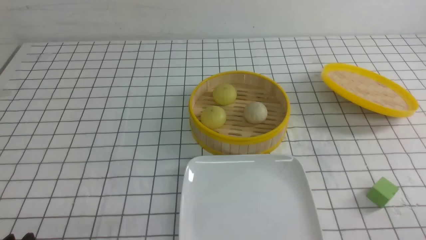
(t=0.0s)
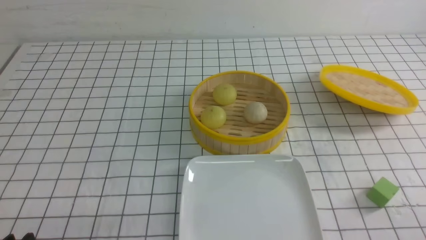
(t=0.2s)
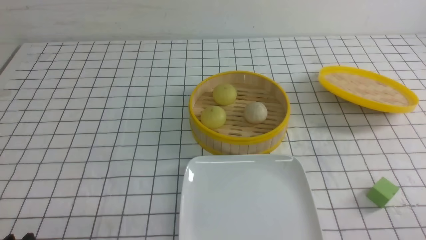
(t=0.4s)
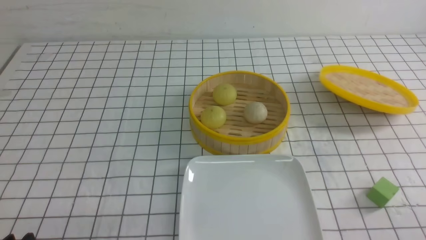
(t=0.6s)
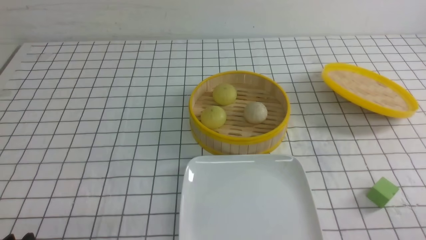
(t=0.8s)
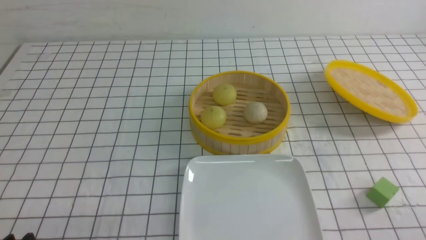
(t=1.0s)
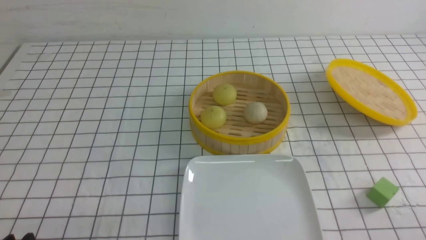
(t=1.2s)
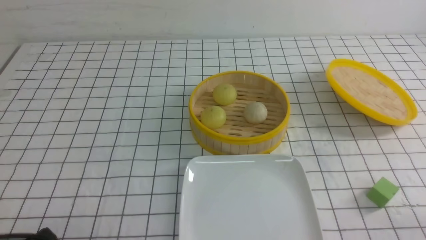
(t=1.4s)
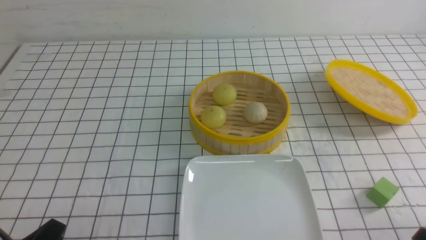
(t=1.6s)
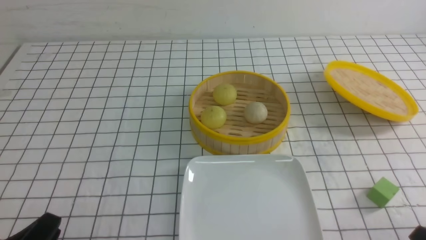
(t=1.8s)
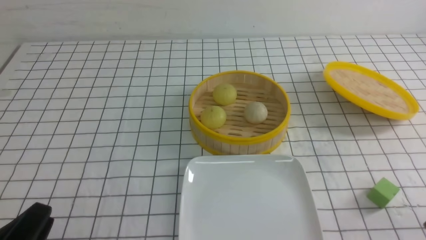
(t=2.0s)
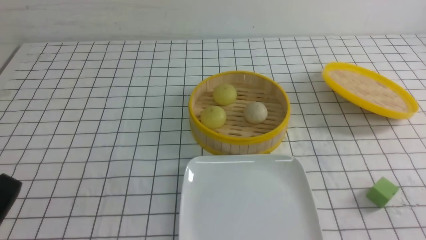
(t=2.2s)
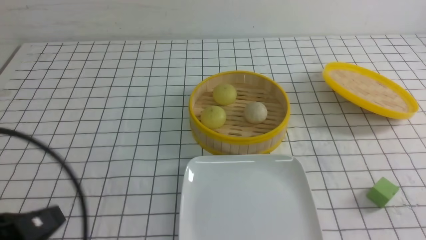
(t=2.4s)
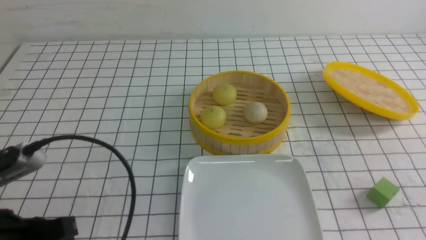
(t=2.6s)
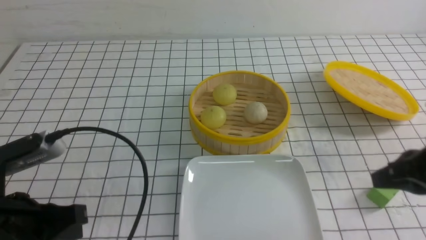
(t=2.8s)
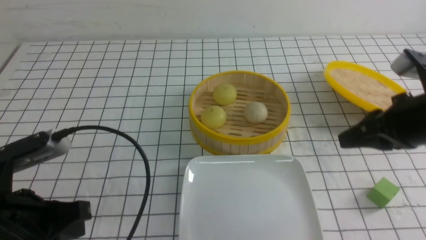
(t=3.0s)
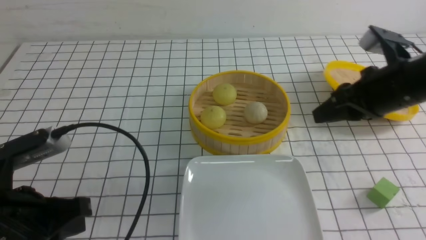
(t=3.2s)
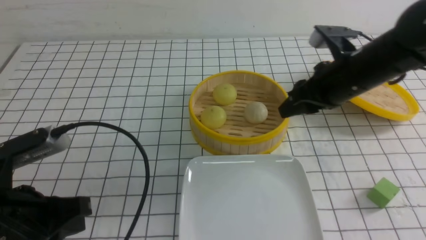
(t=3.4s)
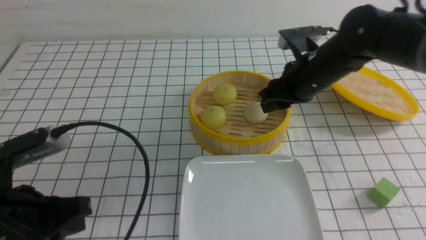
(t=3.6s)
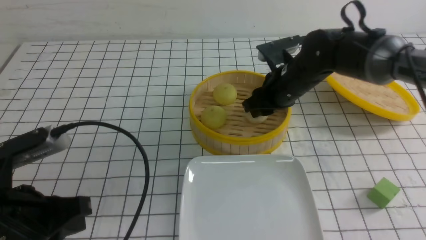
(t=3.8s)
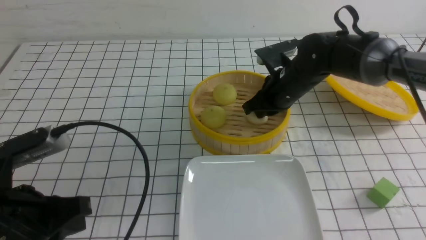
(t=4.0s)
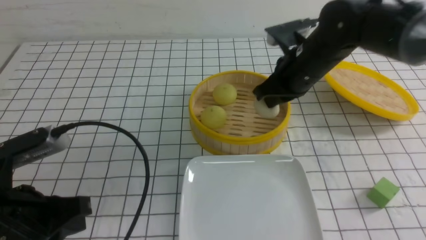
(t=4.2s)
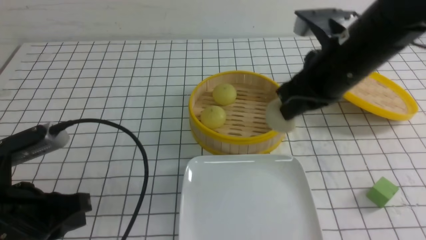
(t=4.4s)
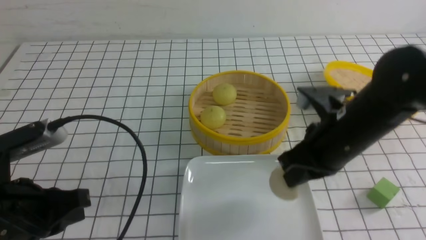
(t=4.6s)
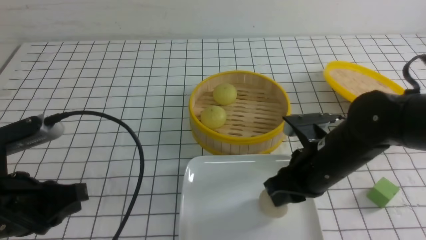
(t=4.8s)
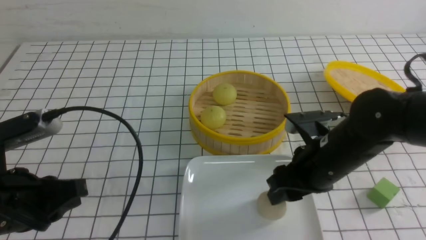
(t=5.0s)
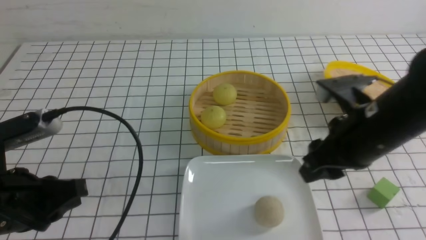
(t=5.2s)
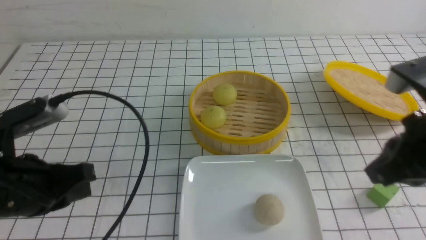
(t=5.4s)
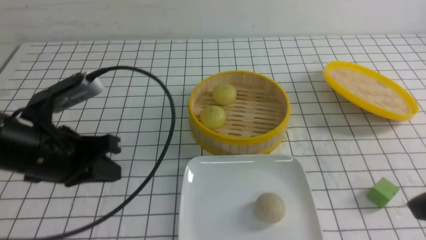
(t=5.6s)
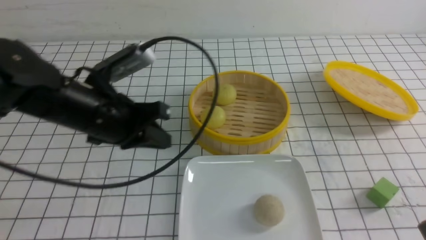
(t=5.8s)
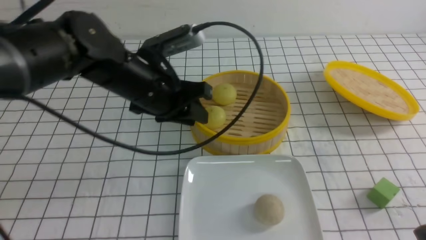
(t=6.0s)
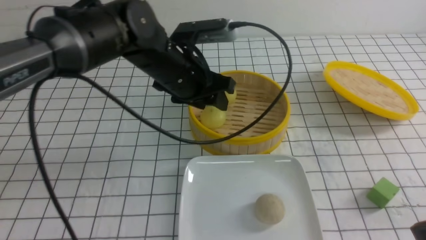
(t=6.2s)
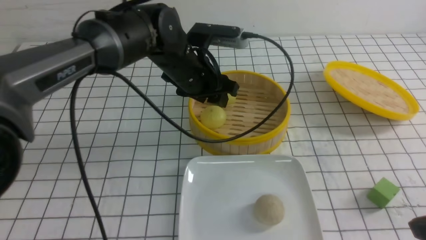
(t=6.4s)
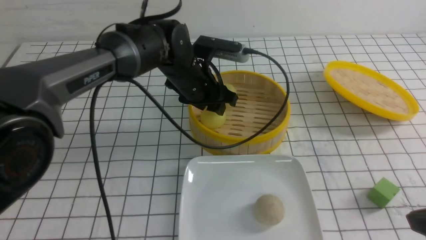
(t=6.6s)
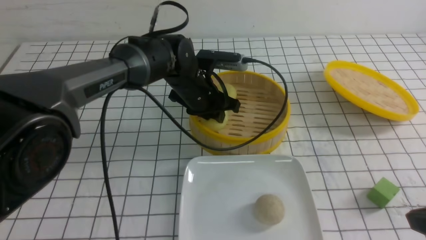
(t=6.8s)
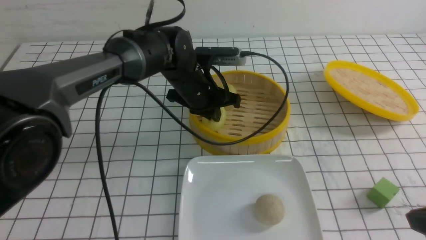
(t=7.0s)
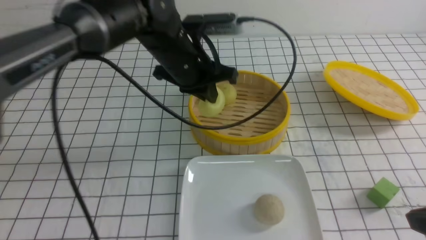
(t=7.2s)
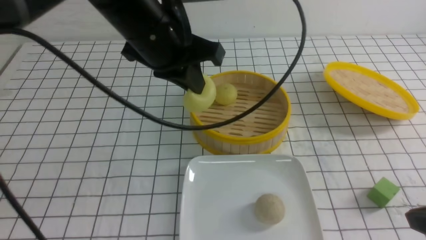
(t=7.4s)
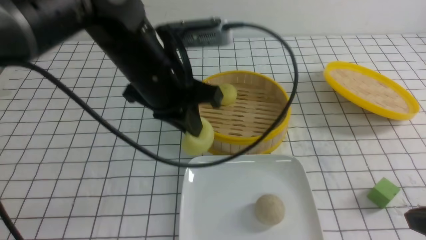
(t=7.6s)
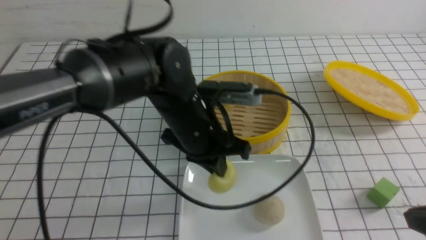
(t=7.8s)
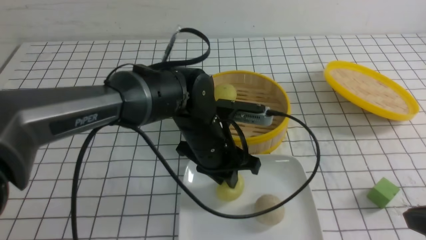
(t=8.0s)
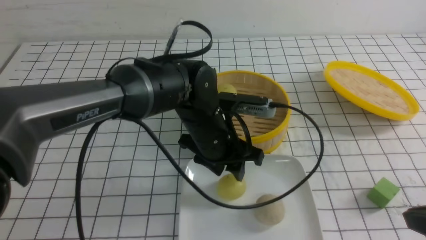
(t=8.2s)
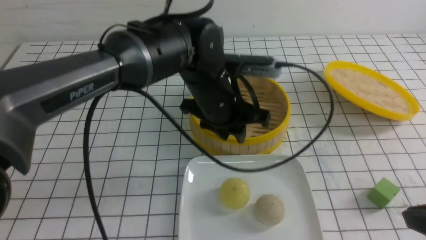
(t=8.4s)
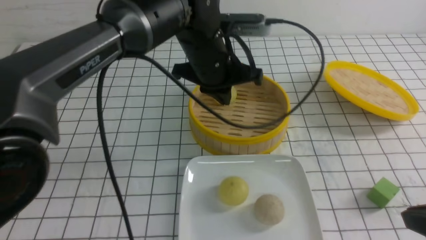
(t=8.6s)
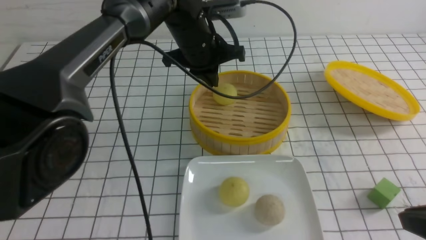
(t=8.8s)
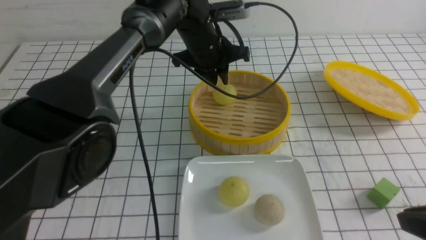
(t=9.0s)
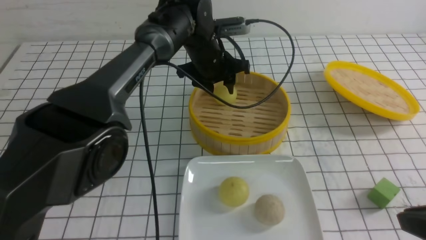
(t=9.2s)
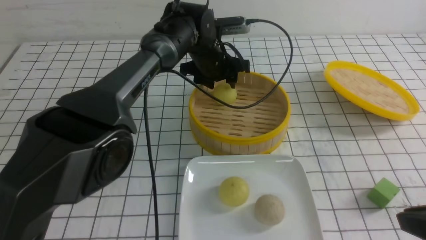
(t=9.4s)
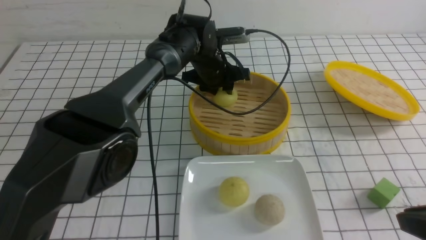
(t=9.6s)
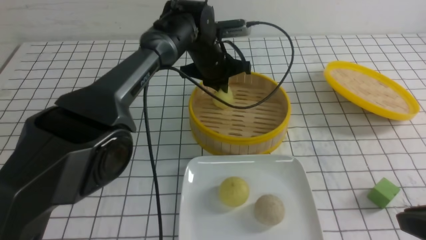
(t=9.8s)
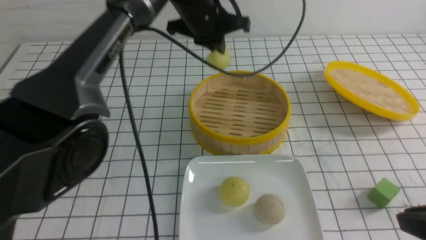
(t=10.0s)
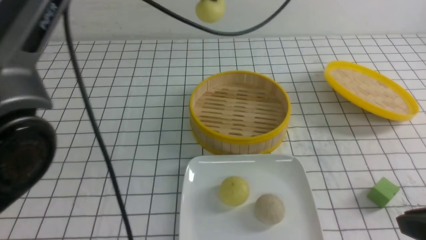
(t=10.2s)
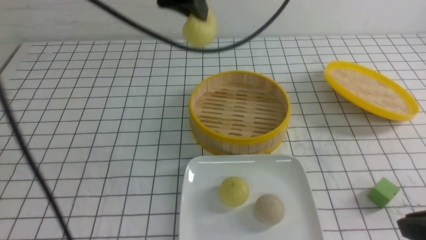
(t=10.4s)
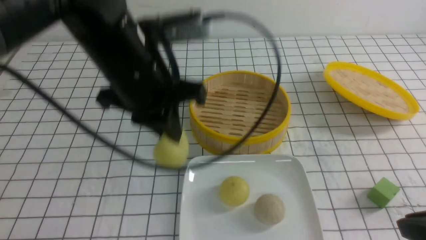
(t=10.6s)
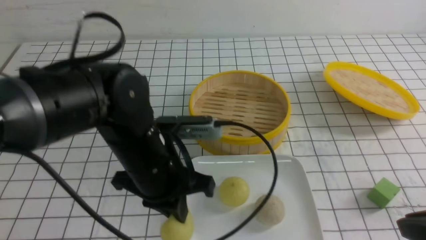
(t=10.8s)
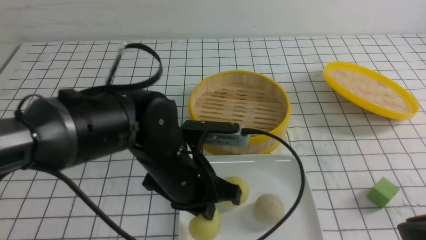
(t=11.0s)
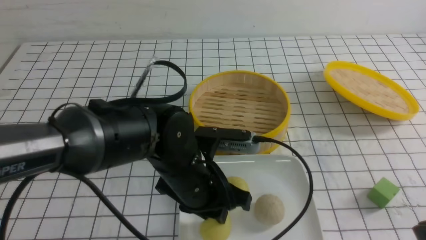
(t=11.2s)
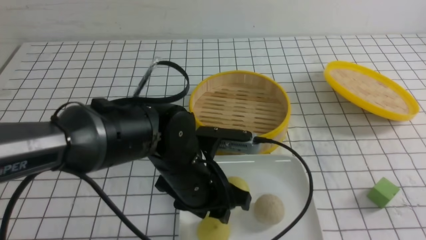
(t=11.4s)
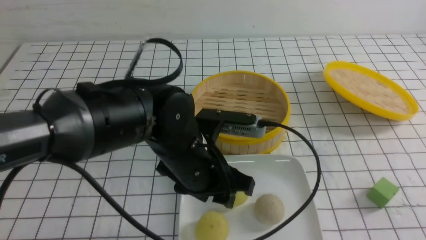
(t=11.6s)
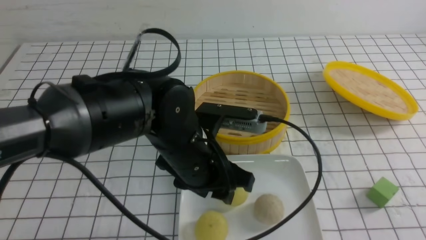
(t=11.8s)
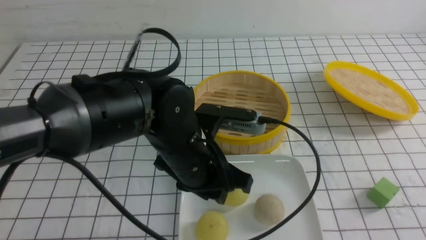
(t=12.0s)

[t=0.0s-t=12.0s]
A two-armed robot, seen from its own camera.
Step, t=0.0s to t=4.0s: use the right arm to grab the steamed stuffed bun that is closest to it.
Step, t=4.2s to t=5.0s: use the right arm to put the steamed stuffed bun into the plate.
Step, t=5.2s to t=7.0s: use the left arm to grab the steamed stuffed bun that is closest to it.
Step, t=7.2s to t=8.2s: use the left arm to put the steamed stuffed bun into the plate.
Step, t=8.4s to t=9.8s: use the left arm to grab the steamed stuffed bun that is closest to it.
Step, t=10.2s to t=11.8s: use the left arm to put the steamed stuffed bun into the plate.
t=1.6s to t=3.0s: The left gripper travels forward and upward by approximately 10 cm, and closes up, while the right gripper goes approximately 25 cm forward and upward, and closes, then opens again.
t=3.0s to t=4.4s: The right gripper travels to the left and forward by some 10 cm, and closes its fingers.
t=4.4s to t=6.0s: The right gripper travels backward and to the right by some 25 cm, and opens and closes again. The left gripper moves forward and to the right, roughly 20 cm, and opens up.
t=6.0s to t=7.6s: The left gripper moves roughly 5 cm downward and comes back, and closes its fingers.
t=7.6s to t=9.0s: The left gripper moves forward, roughly 15 cm, and opens its fingers.
t=9.0s to t=10.4s: The left gripper goes roughly 20 cm upward and backward, and closes.
t=10.4s to t=12.0s: The right gripper goes about 10 cm backward and to the right, and closes up, while the left gripper is displaced downward and backward by approximately 20 cm, and opens.

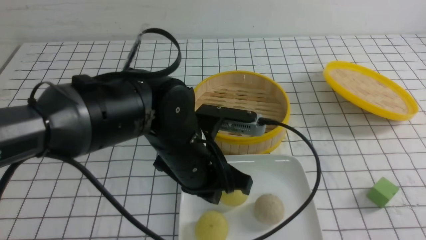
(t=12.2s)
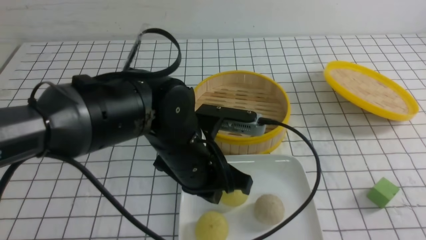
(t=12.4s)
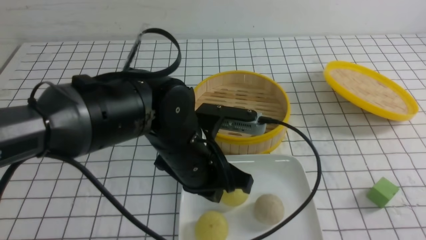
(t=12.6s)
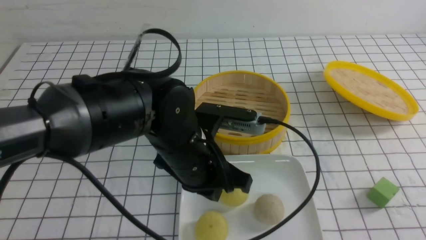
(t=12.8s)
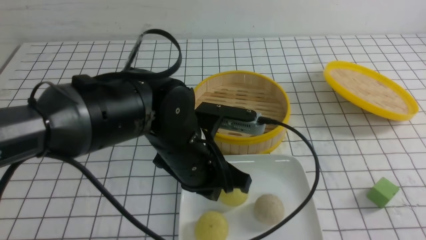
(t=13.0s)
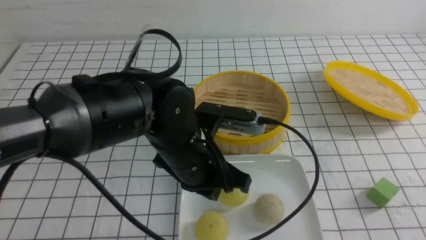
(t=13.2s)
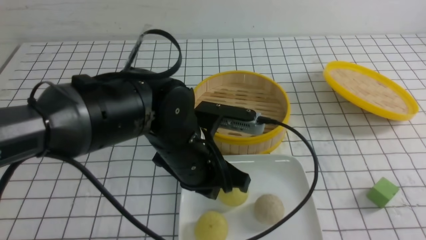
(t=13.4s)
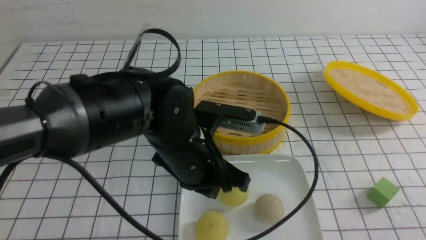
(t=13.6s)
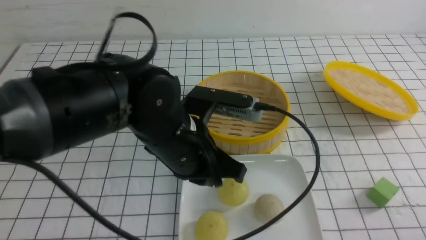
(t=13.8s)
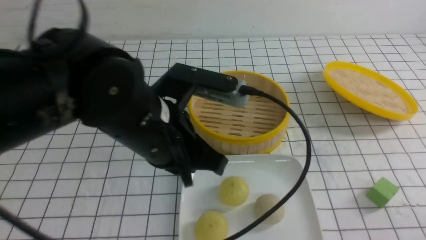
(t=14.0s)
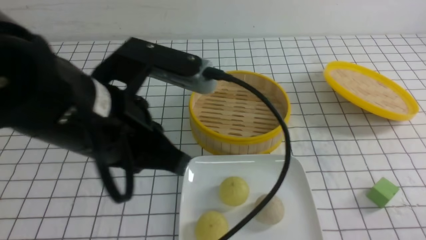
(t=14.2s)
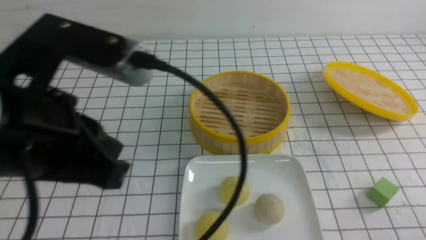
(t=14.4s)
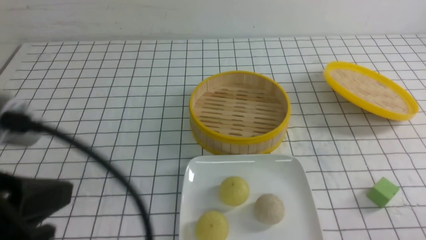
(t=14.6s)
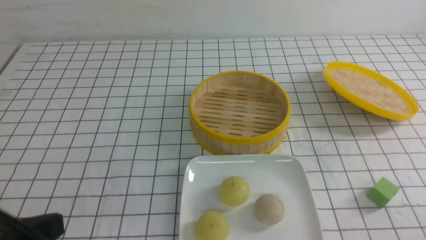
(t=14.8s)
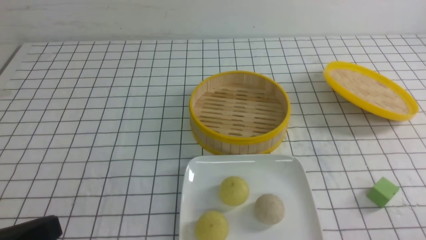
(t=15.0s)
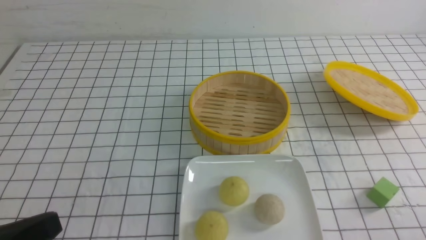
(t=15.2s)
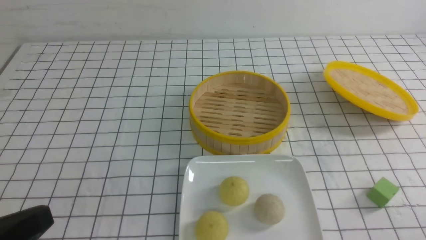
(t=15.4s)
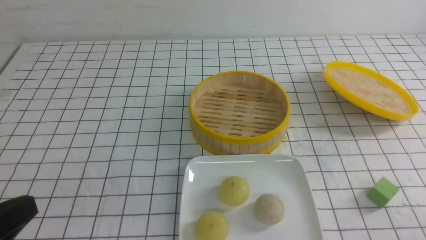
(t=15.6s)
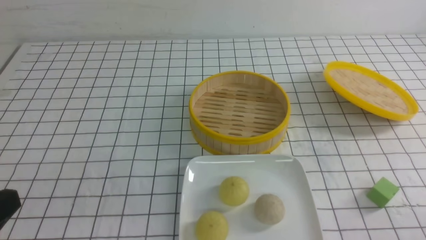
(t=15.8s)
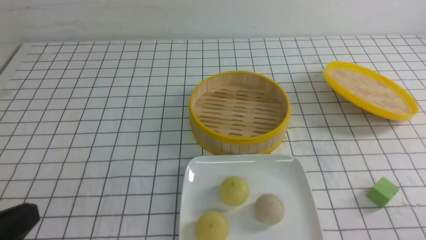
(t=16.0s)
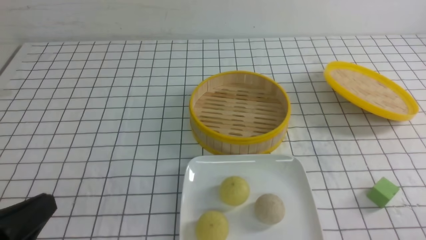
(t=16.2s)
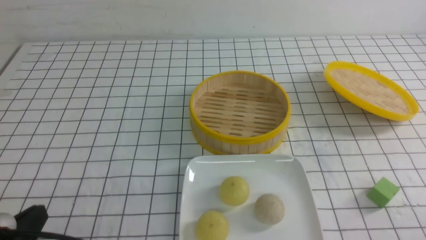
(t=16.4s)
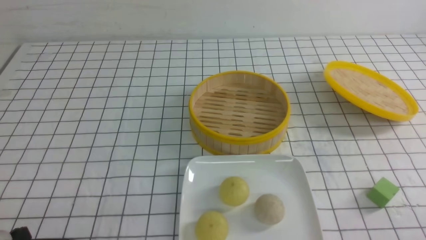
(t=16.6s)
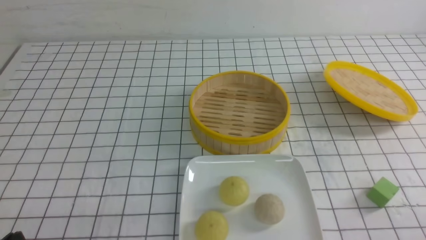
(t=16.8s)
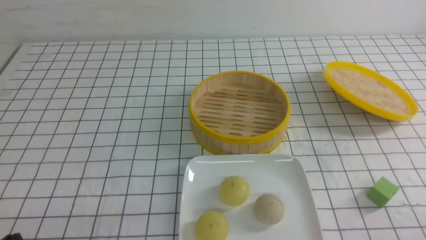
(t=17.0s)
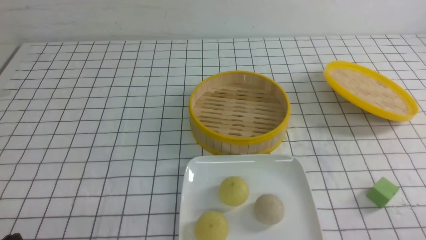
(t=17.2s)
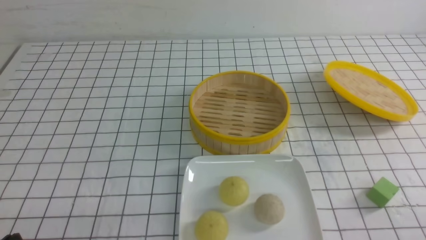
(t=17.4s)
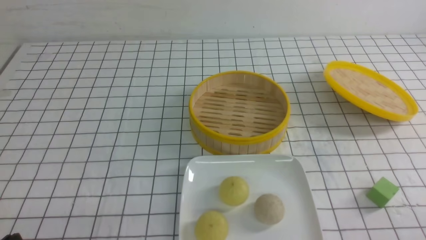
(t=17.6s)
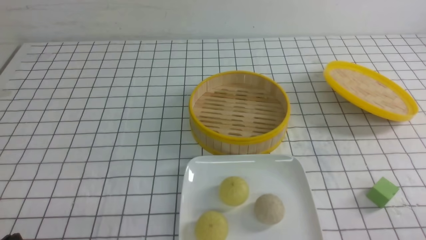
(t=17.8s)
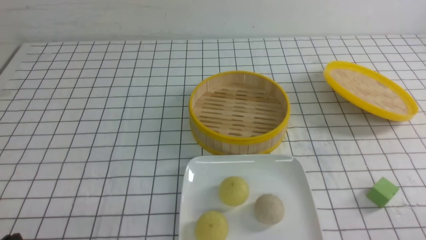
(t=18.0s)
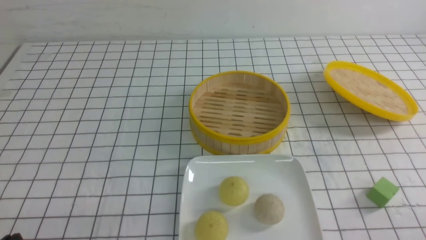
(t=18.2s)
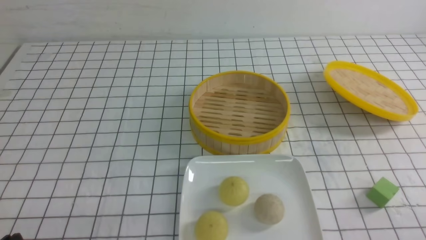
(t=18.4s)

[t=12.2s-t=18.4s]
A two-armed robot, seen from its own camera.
t=12.2s to t=13.8s: The right gripper goes approximately 10 cm downward.
t=13.8s to t=15.4s: The left gripper shifts roughly 25 cm to the left and backward.
t=15.4s to t=16.8s: The left gripper moves downward, roughly 10 cm.
t=16.8s to t=18.4s: Both grippers stay put.
